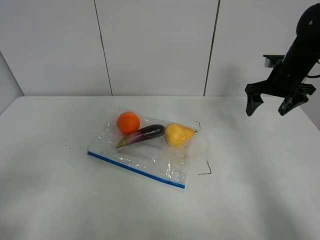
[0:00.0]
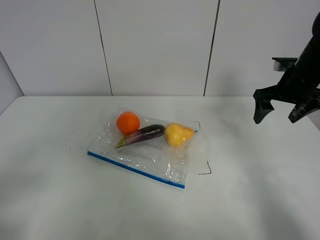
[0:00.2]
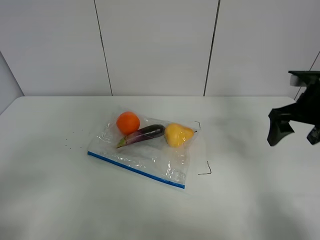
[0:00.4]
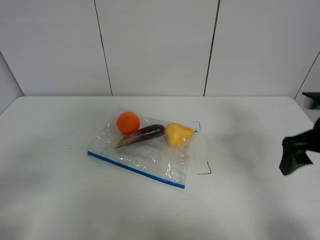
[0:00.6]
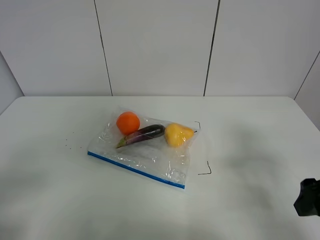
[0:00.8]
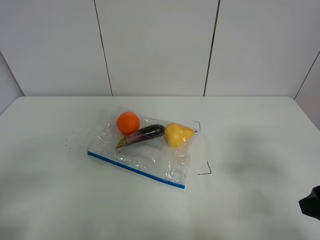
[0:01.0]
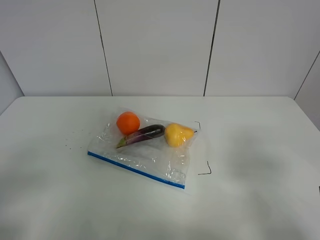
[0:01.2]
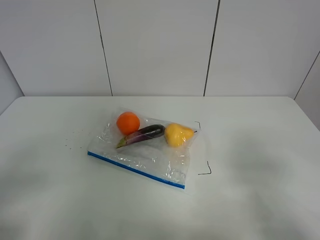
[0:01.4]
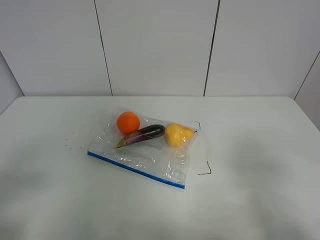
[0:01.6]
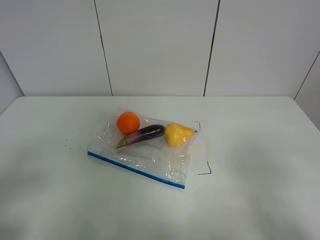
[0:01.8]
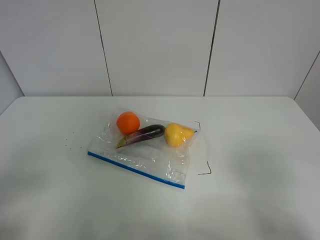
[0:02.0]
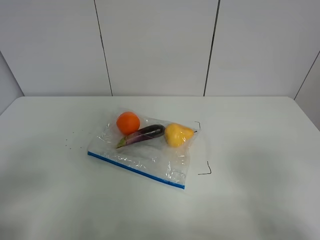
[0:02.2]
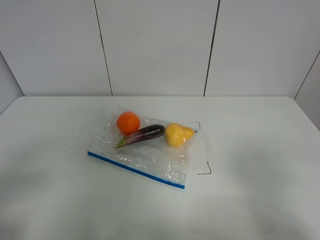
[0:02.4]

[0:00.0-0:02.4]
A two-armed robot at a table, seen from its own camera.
0:00.0 to 0:01.2: The right gripper is displaced backward by some 35 cm.
